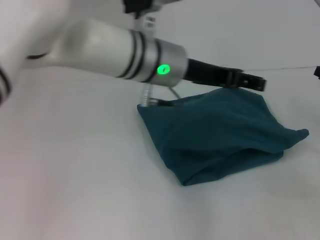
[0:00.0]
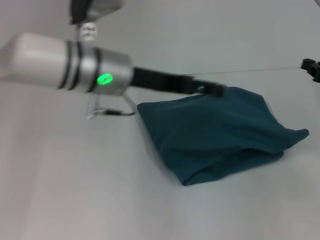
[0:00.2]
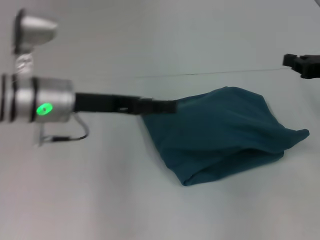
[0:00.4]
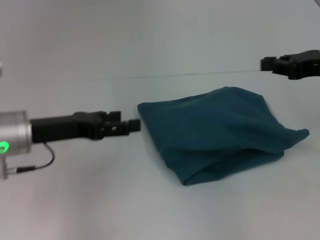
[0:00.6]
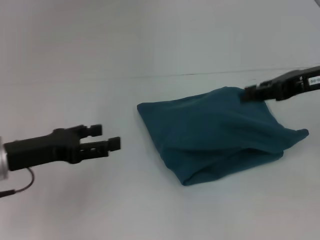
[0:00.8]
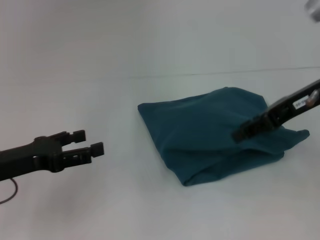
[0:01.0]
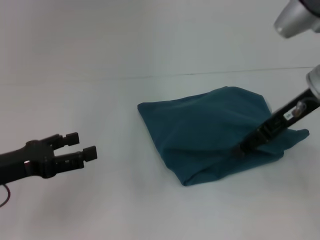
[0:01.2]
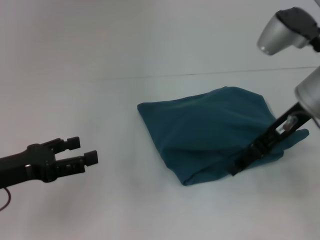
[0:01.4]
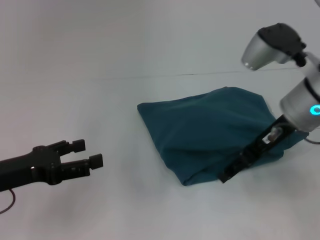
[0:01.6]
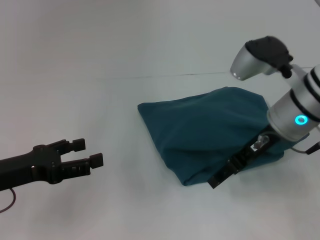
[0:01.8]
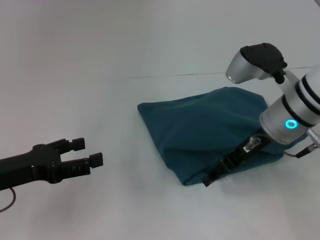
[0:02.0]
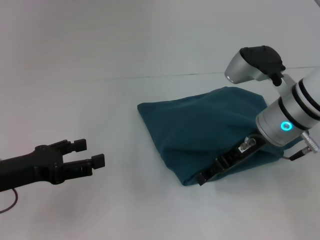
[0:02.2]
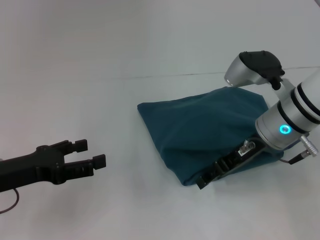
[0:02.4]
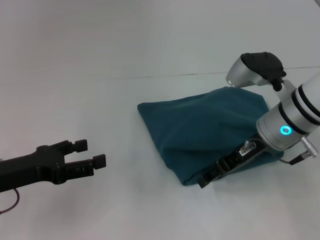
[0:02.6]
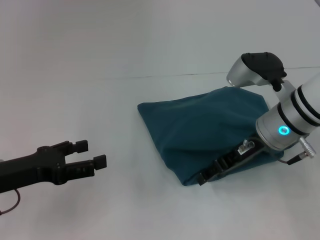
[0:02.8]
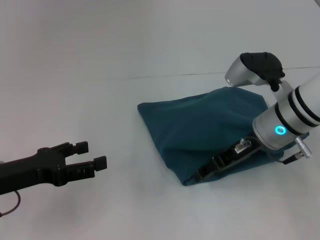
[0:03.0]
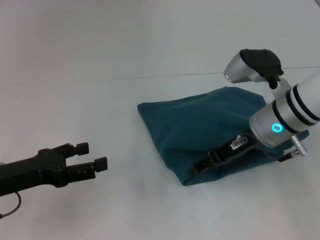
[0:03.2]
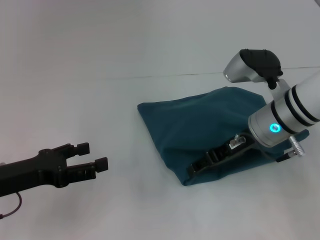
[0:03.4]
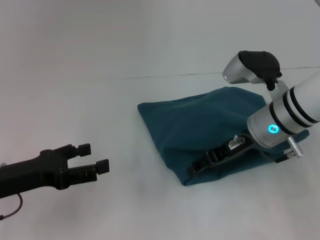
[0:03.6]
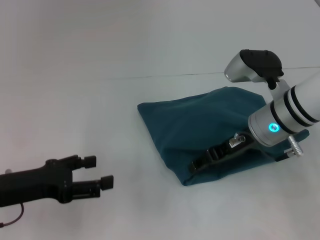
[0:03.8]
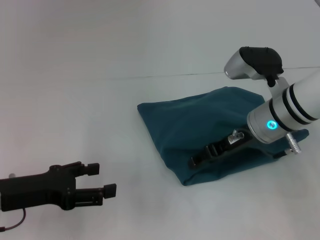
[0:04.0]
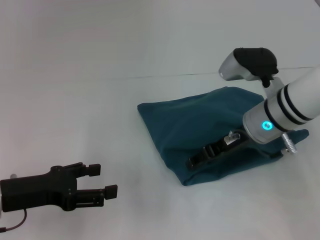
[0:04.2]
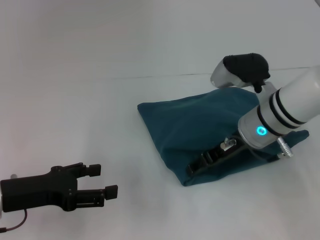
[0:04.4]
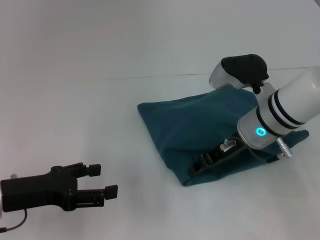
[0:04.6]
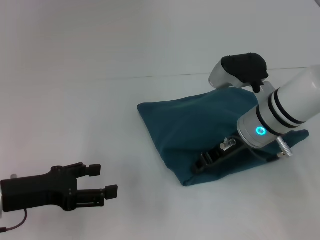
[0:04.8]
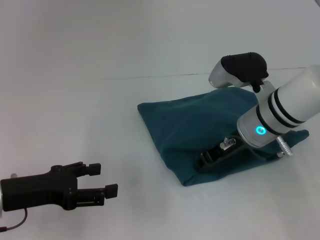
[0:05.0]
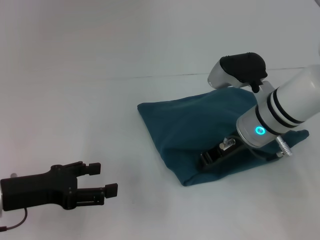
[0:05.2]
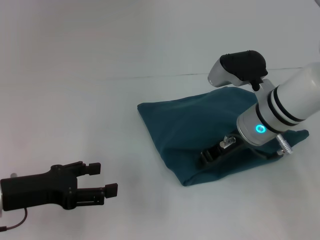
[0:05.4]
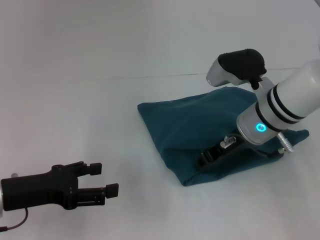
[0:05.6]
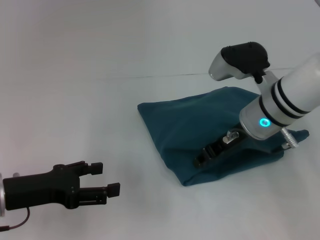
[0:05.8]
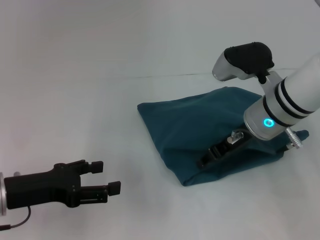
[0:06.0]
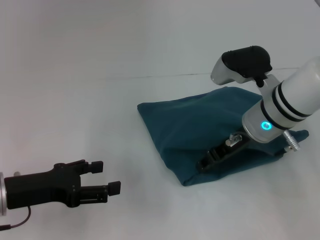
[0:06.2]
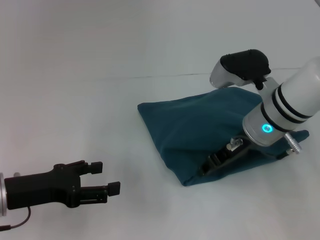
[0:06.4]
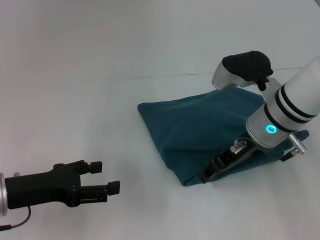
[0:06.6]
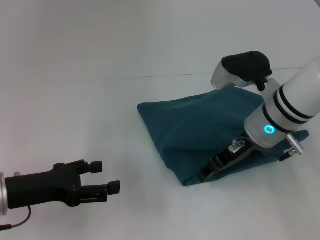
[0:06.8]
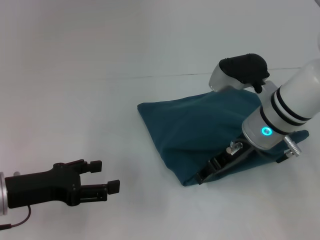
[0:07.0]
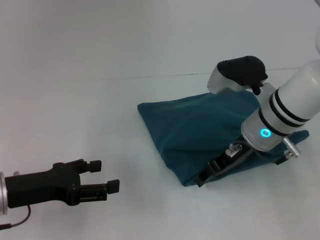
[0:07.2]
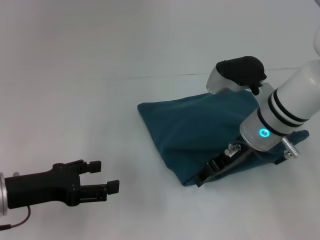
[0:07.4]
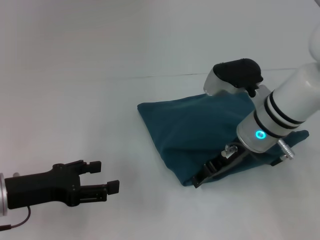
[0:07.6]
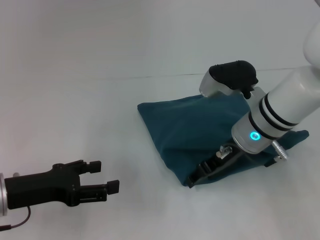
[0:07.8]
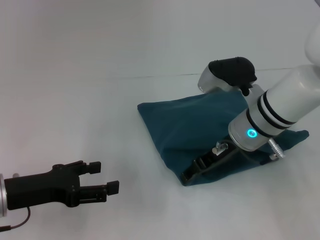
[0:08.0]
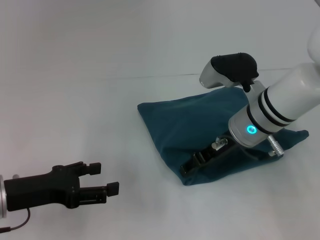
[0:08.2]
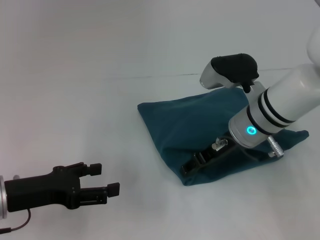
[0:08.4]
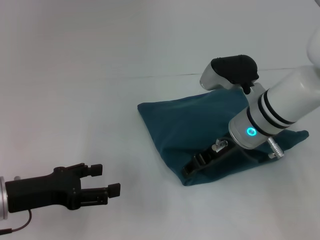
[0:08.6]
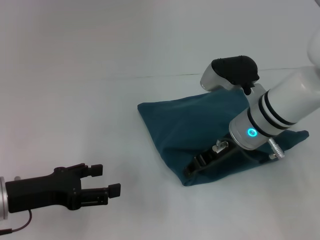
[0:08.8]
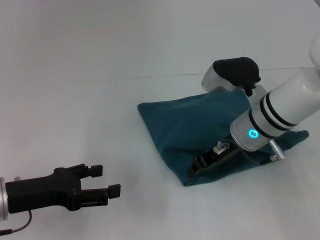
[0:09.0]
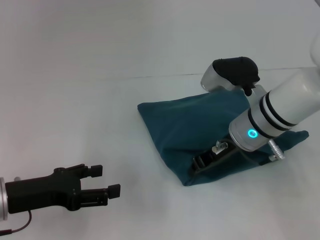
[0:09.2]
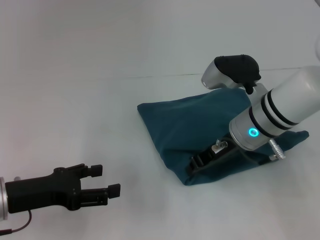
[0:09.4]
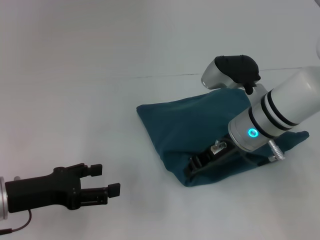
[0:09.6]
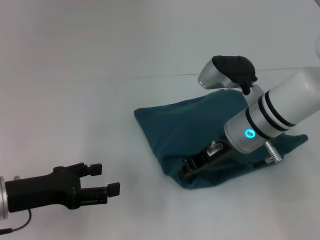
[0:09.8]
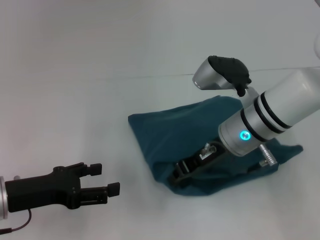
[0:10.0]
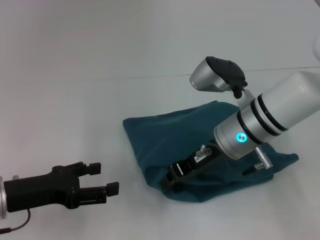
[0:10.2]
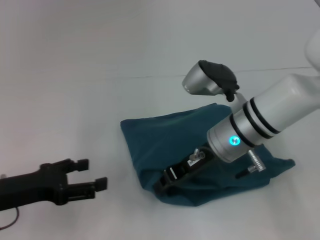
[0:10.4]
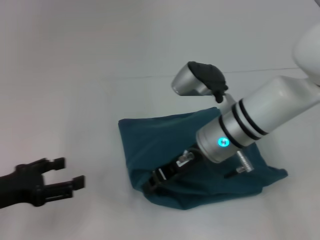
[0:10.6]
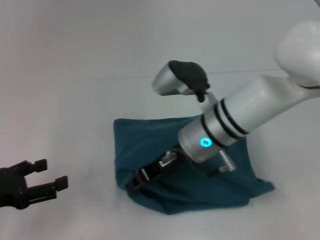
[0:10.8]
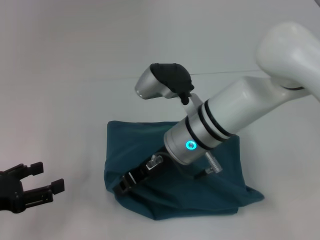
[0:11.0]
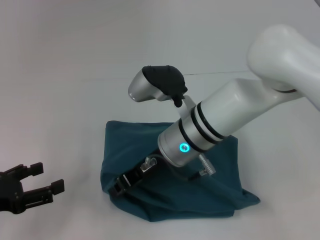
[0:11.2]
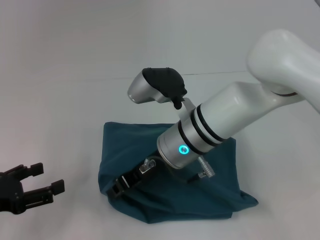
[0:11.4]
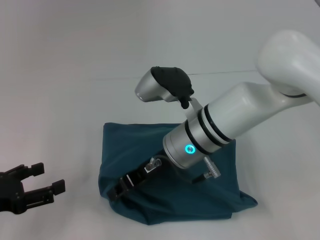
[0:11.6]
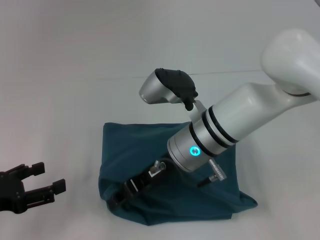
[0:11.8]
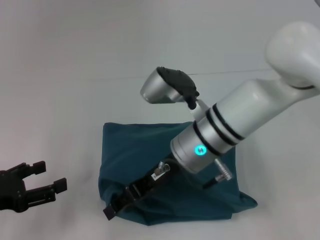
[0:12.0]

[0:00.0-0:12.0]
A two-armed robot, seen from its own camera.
0:00.0 to 0:01.6: The right gripper is displaced to the left and upward by some 20 cm, and opens its fingers, while the left gripper travels to the left and backward by some 30 cm.
0:01.6 to 0:03.0: The right gripper travels downward by about 5 cm.
0:03.0 to 0:04.4: The grippers move only a little.
0:04.4 to 0:06.0: The right gripper closes its fingers.
0:06.0 to 0:09.0: The grippers stay close to where they were, moving slightly.
0:09.0 to 0:10.4: The right gripper closes its fingers.
0:10.4 to 0:12.0: The grippers both shift to the left by approximately 5 cm.

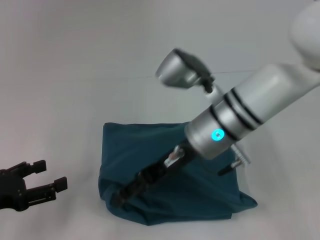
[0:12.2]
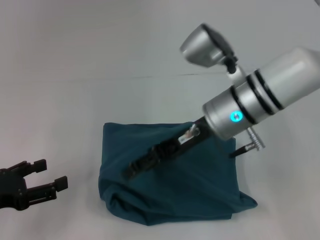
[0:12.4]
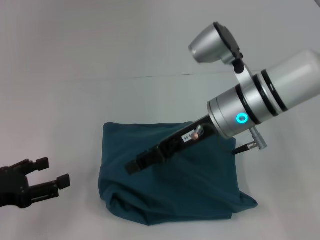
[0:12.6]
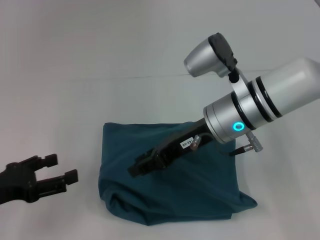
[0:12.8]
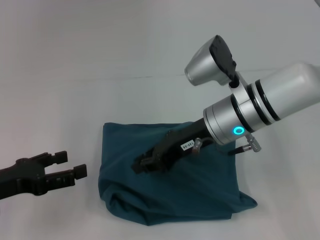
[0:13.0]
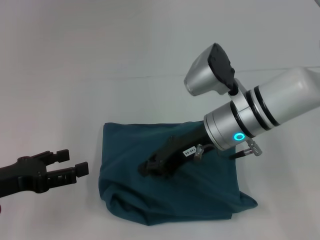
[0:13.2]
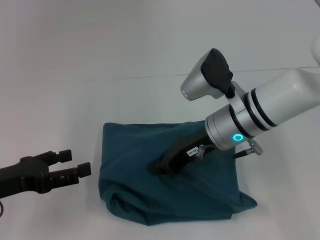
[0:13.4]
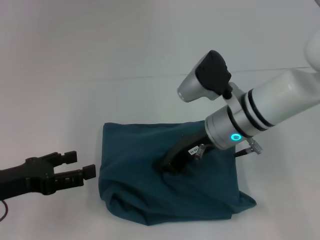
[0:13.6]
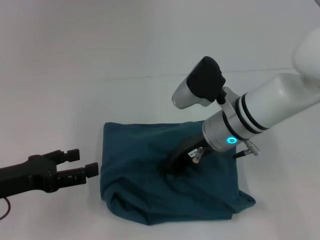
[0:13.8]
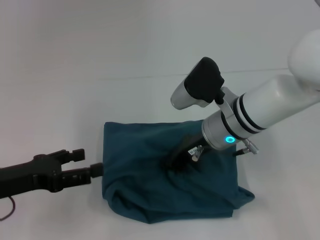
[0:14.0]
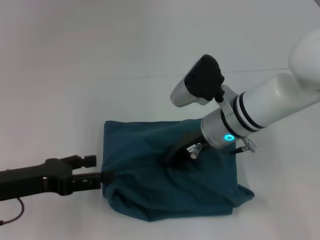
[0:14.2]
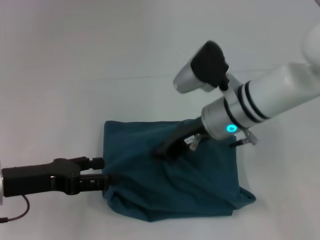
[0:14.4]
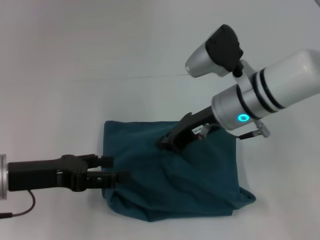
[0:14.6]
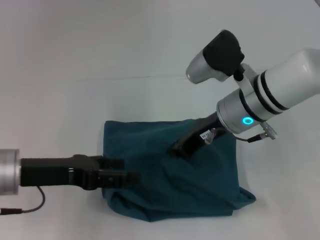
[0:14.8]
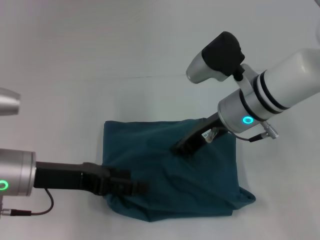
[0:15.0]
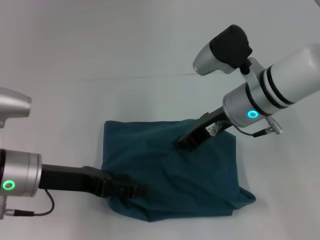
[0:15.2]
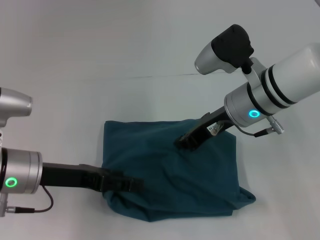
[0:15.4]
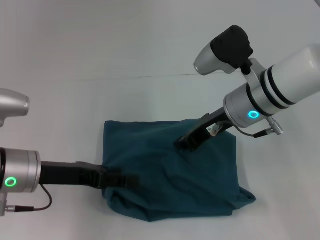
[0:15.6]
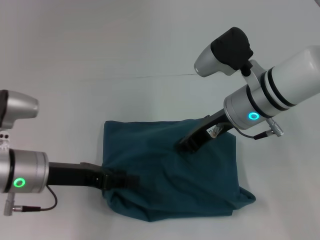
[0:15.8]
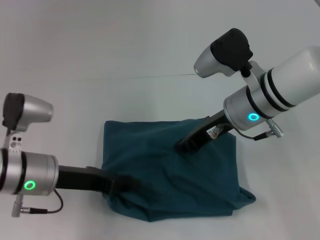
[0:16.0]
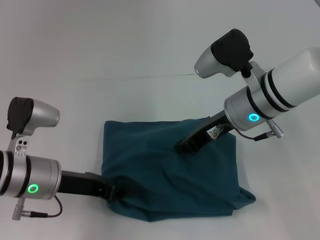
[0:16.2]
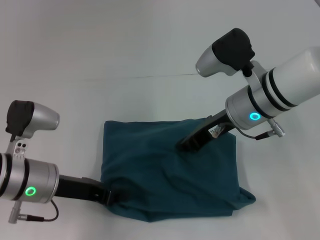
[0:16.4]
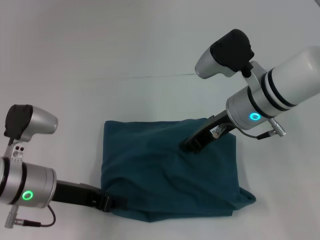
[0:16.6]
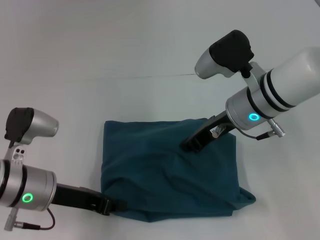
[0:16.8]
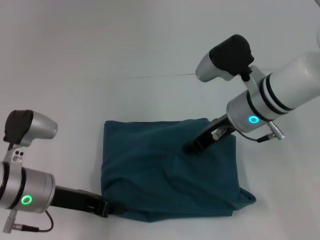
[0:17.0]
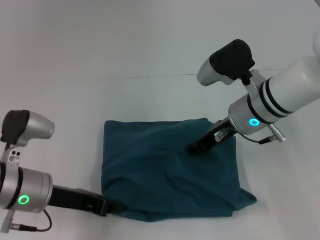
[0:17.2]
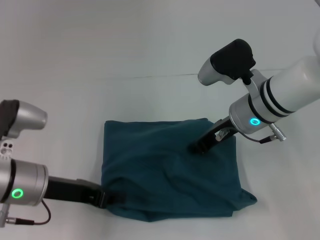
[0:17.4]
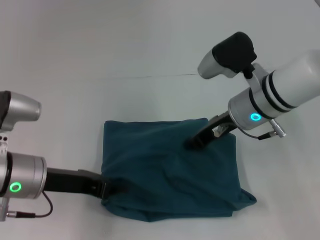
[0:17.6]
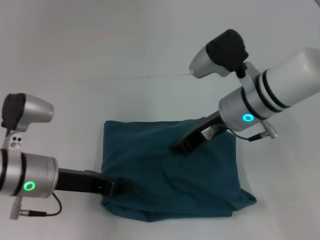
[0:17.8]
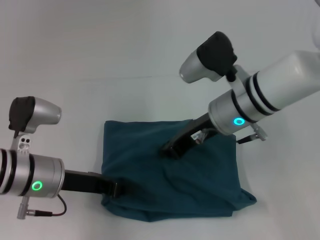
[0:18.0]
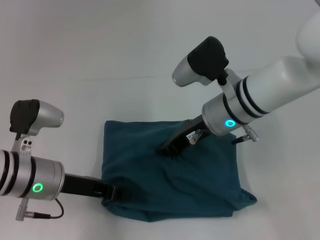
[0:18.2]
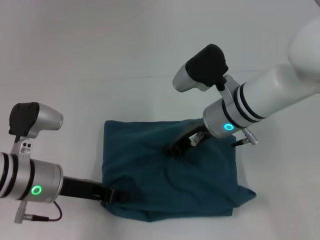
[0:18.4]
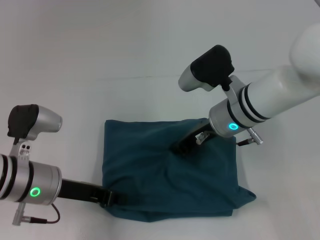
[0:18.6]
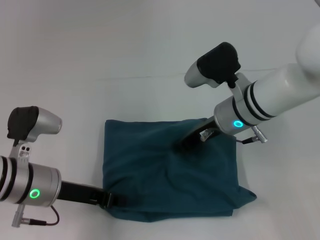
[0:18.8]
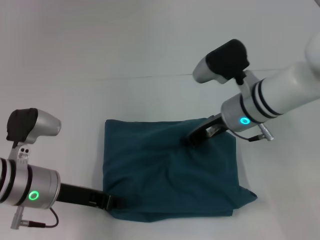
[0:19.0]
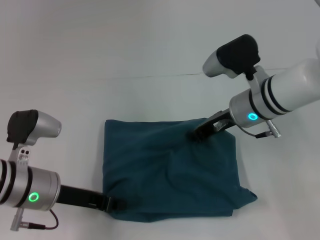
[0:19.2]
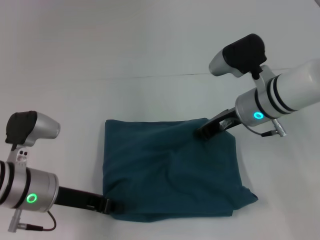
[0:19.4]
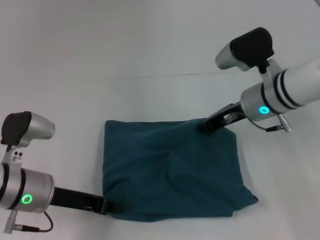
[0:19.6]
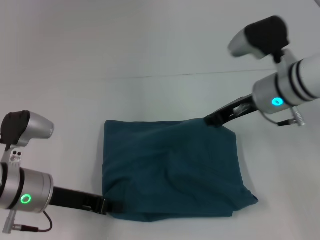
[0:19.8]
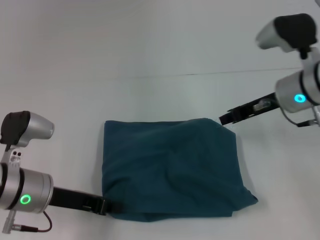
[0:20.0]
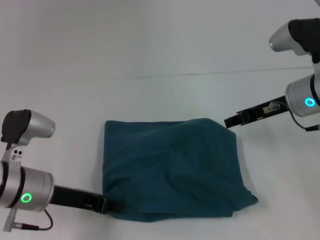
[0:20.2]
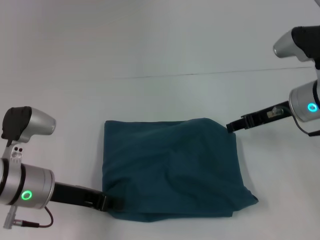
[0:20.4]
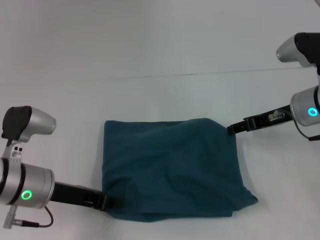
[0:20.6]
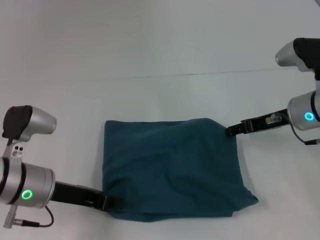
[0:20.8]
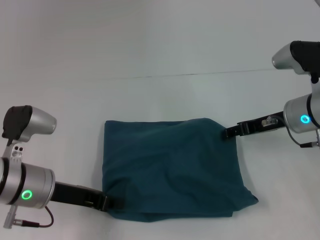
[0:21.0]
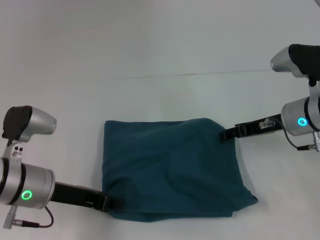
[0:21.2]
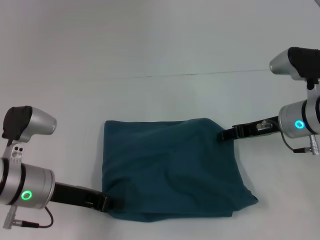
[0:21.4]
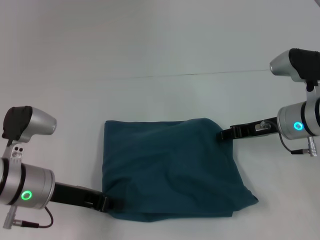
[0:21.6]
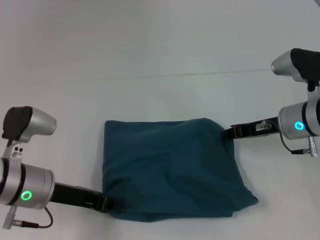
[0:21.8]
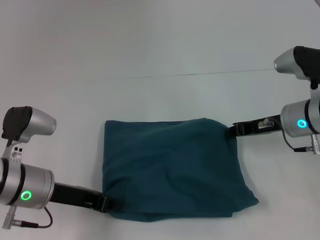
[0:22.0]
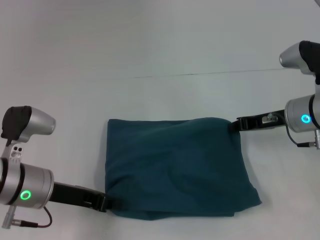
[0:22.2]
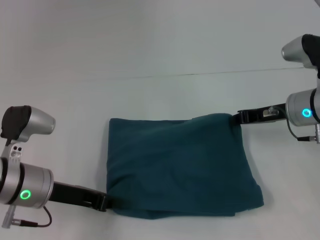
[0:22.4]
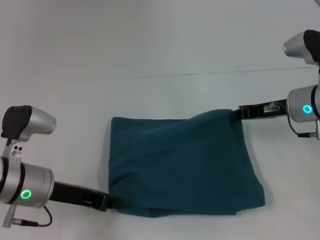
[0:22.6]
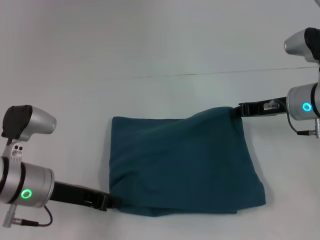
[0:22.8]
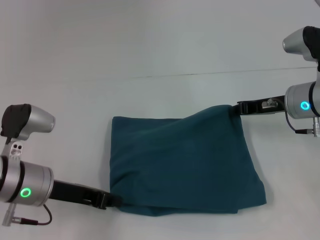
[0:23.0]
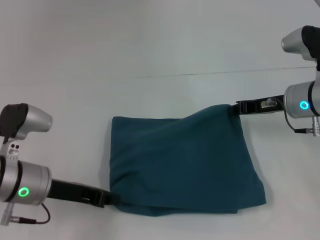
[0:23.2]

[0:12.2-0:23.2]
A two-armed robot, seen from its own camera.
0:12.2 to 0:13.8: The right gripper shifts by some 5 cm, and closes up.
0:13.8 to 0:15.4: The left gripper shifts about 5 cm to the right.
0:15.4 to 0:17.0: The left gripper closes up.
0:17.0 to 0:18.4: The grippers stay close to where they were, moving slightly.
0:18.4 to 0:20.0: The right gripper moves to the right, roughly 10 cm.
0:20.0 to 0:21.6: The right gripper is displaced downward by some 5 cm, and opens.
0:21.6 to 0:23.2: The right gripper closes.
